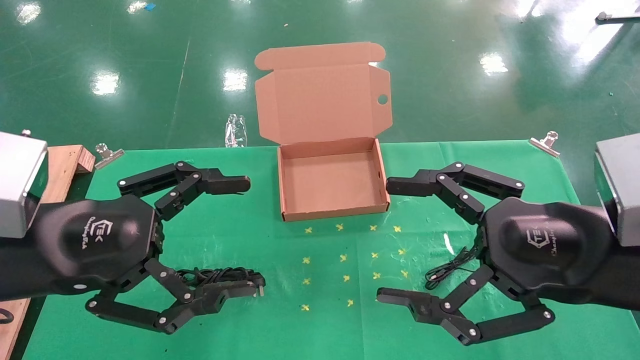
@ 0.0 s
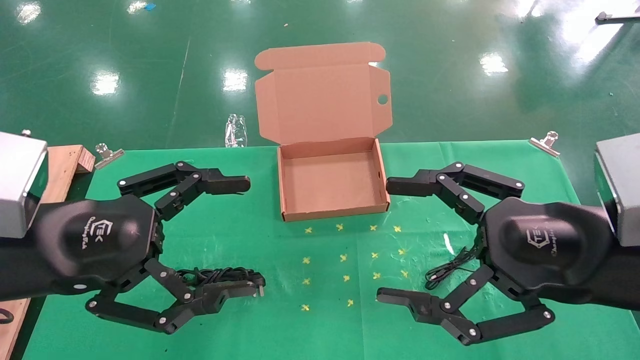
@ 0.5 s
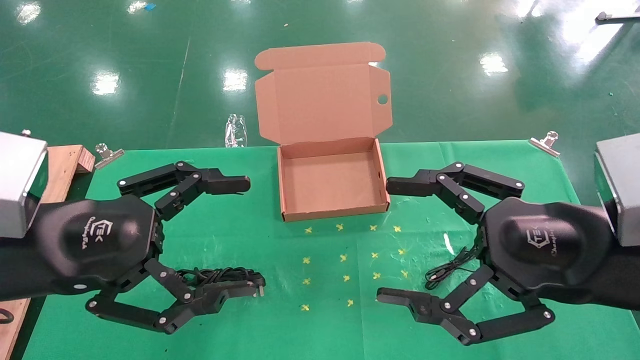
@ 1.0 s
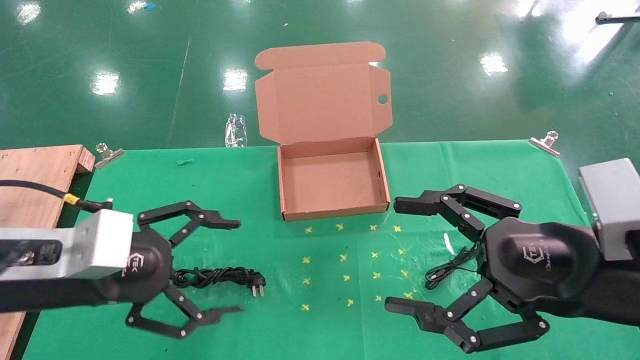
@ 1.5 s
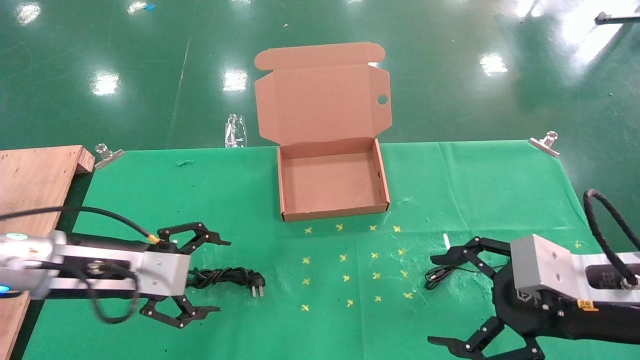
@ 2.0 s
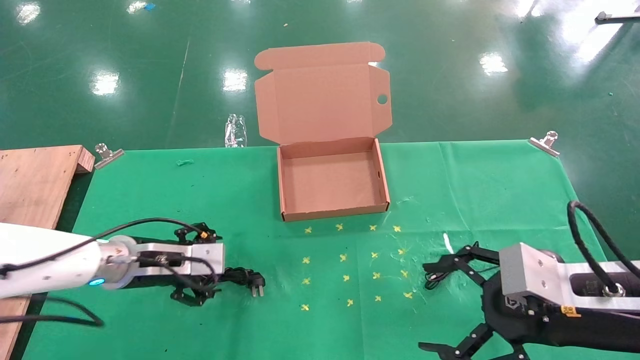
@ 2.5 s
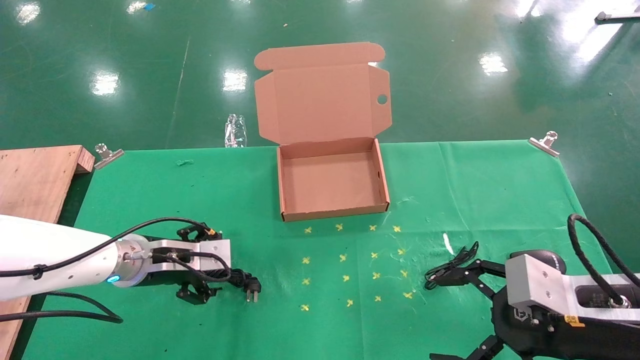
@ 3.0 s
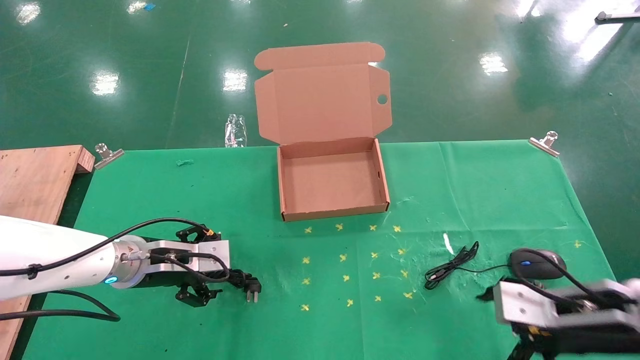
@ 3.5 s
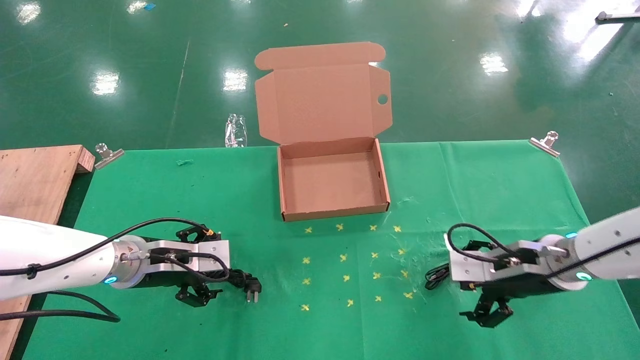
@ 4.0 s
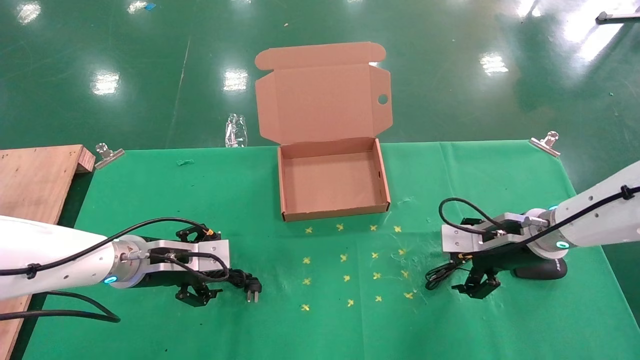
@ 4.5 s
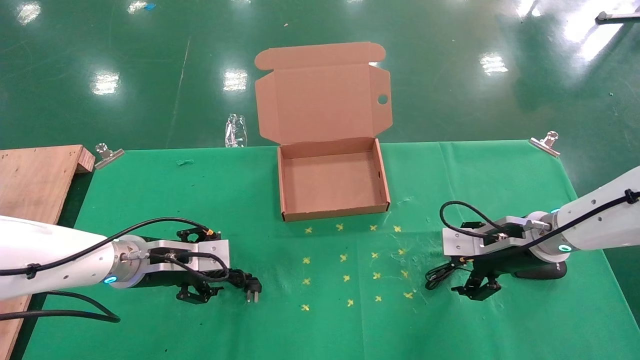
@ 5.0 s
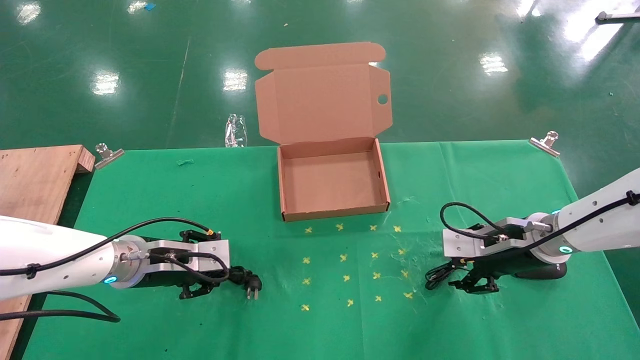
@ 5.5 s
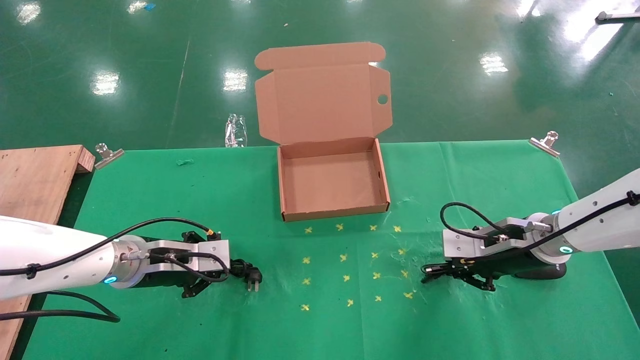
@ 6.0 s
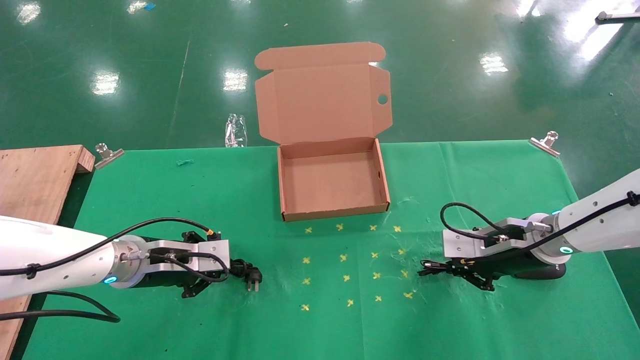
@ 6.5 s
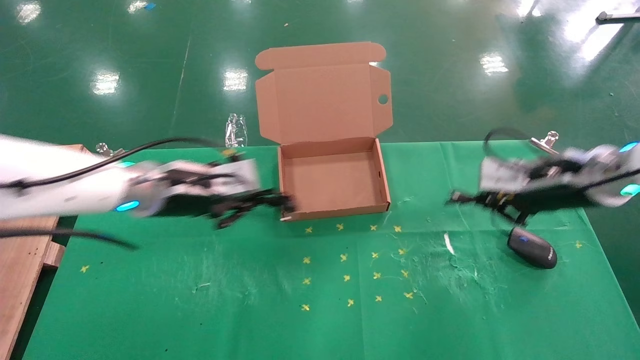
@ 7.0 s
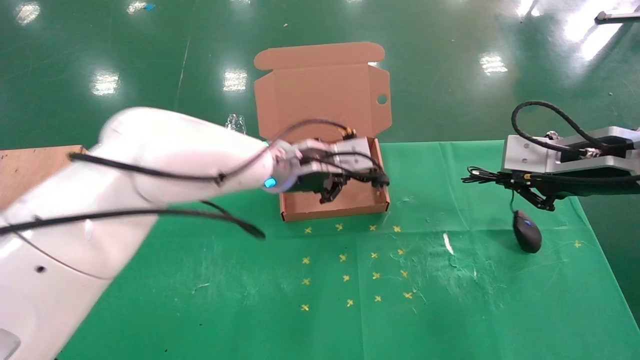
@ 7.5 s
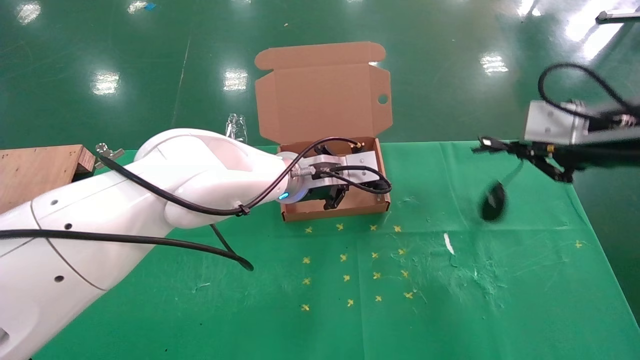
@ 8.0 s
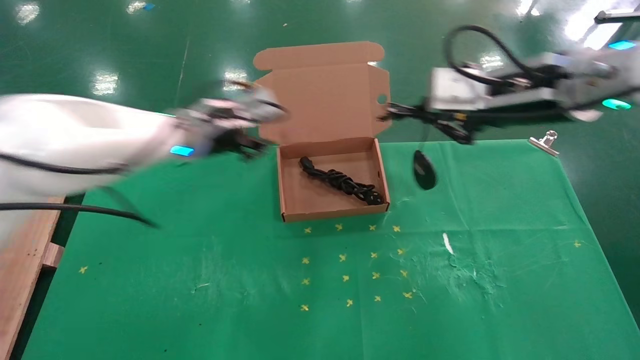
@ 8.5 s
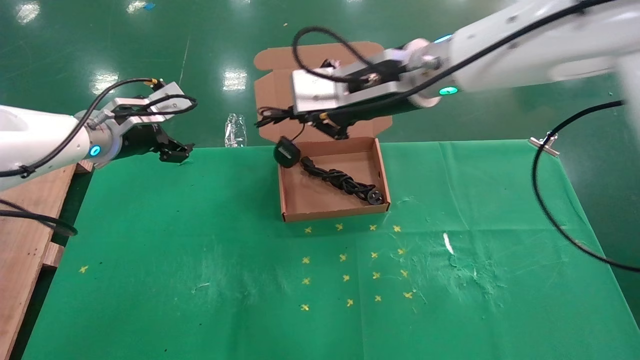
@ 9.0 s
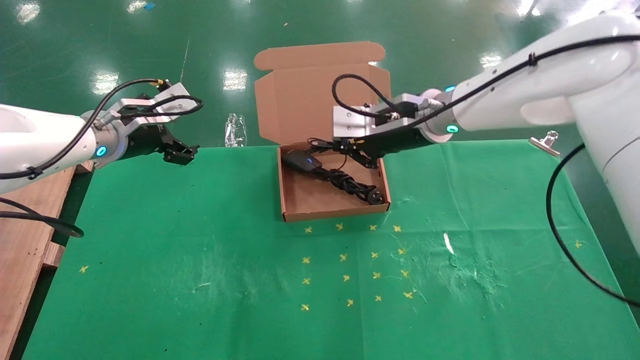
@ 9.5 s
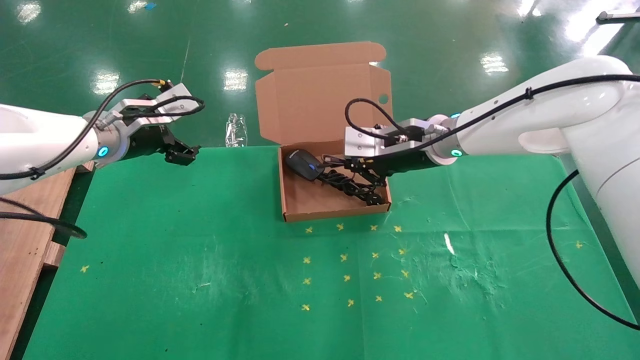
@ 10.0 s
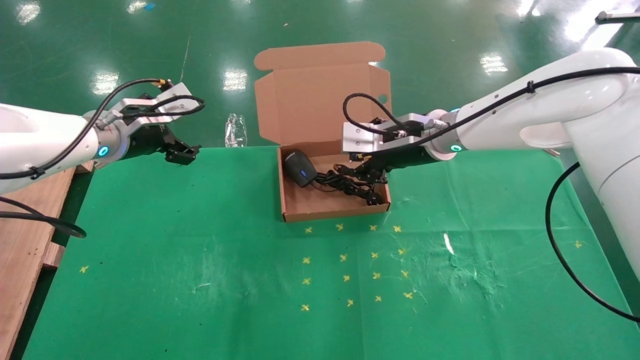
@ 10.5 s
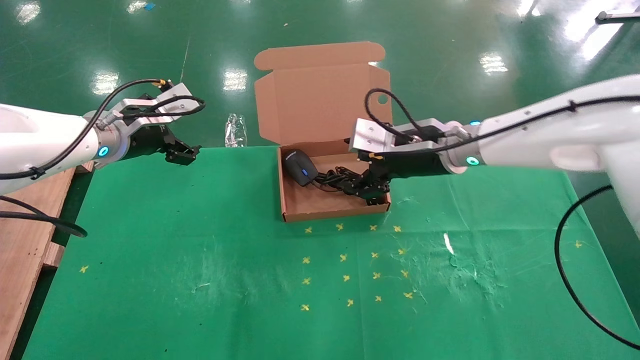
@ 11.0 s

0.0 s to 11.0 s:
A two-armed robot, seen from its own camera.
Task of the whole recording: grasp data cable left put into box grasp mouse right put into box.
Step, 1.5 to 6.0 s: Simultaneously pick up the mouse and power cord from the accessory packaging area.
Step, 6.5 to 10.0 s: Place the mouse and power cord into the box.
0.0 to 2.0 s: The right gripper heads downward, covering some 5 cm, while the left gripper travels forward and downward by some 15 cm.
2.0 to 3.5 s: The left gripper moves forward and downward, approximately 10 cm. Meanwhile the right gripper moves downward and forward, roughly 10 cm.
3.5 to 5.5 s: The left gripper closes. Meanwhile the right gripper moves forward, roughly 10 cm.
5.5 to 7.5 s: The left gripper goes approximately 25 cm to the right and upward, and closes up; the right gripper travels upward and backward by about 15 cm, and closes its fingers.
7.5 to 9.0 s: The two grippers go some 25 cm to the left. The left gripper opens its fingers.
9.0 to 11.0 s: The right gripper heads downward, covering approximately 10 cm, and opens up.

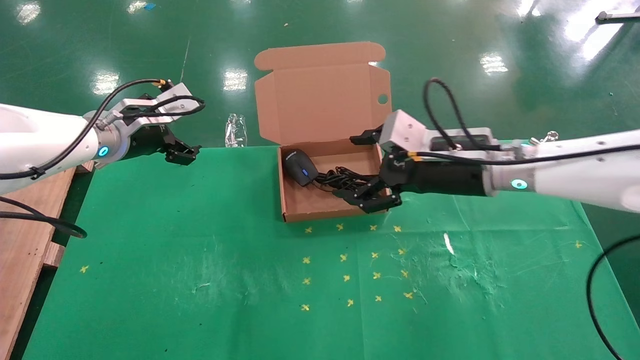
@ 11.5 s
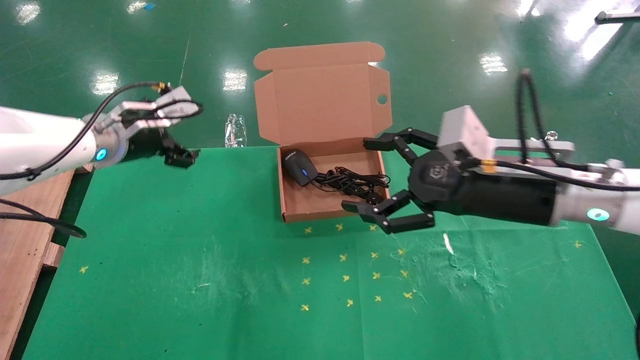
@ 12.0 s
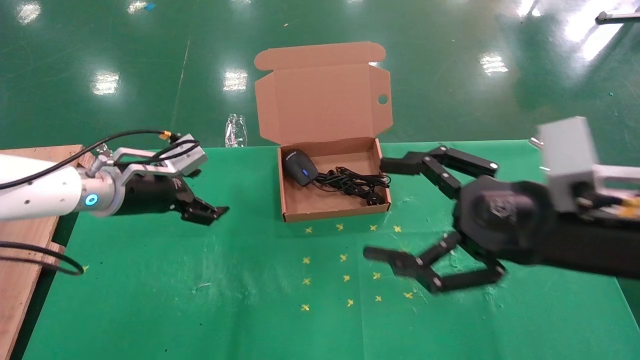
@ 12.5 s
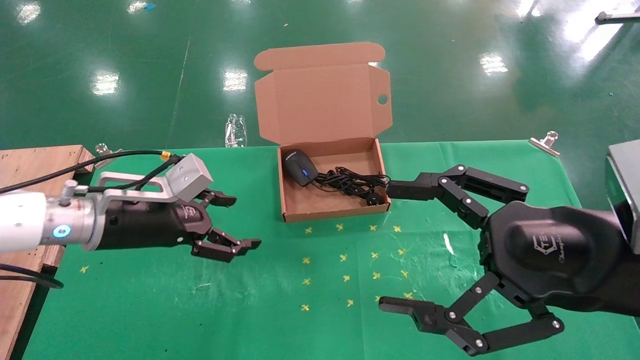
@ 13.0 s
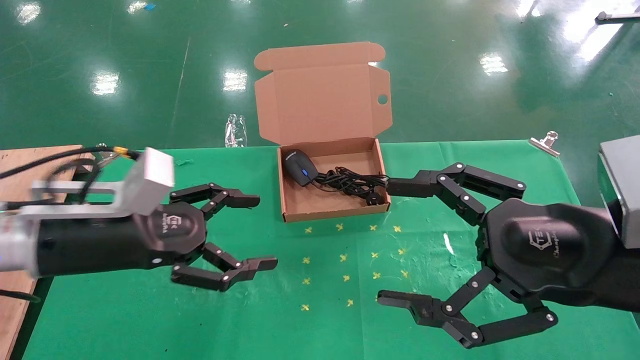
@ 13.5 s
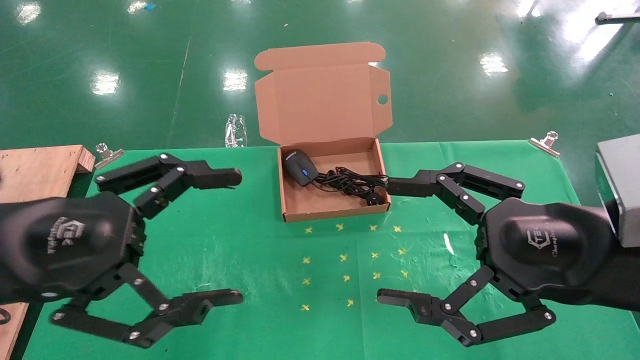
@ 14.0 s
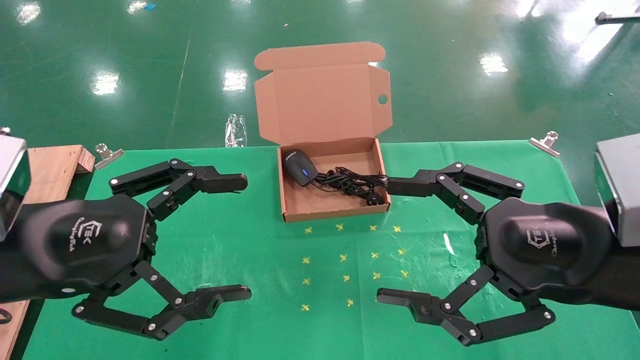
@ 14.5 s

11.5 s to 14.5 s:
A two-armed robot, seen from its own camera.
Task of the whole recording: grasp data cable left put into box grasp mouse right put into box.
11.5 to 13.0 s: The right gripper is displaced backward by about 20 cm. The left gripper heads backward and downward, covering roughly 10 cm.
13.0 to 14.5 s: The left gripper heads backward and upward, covering approximately 15 cm.
